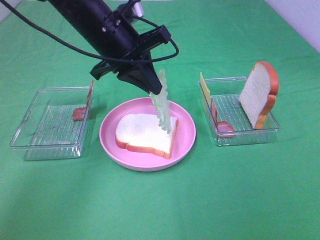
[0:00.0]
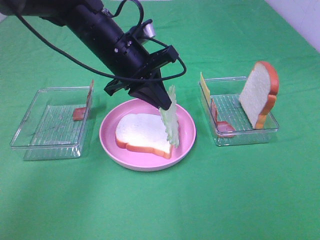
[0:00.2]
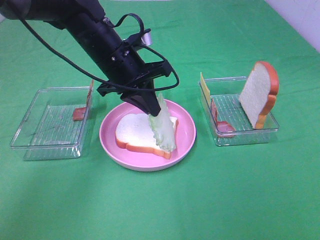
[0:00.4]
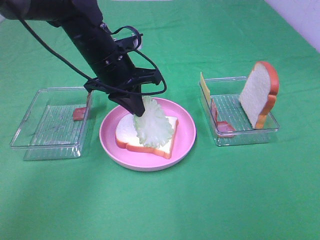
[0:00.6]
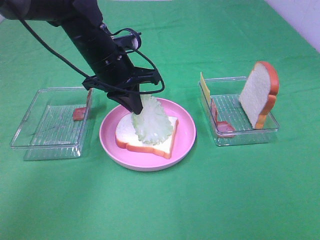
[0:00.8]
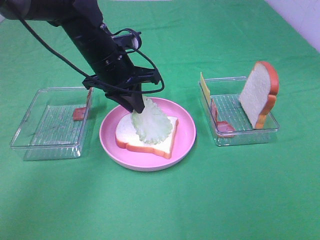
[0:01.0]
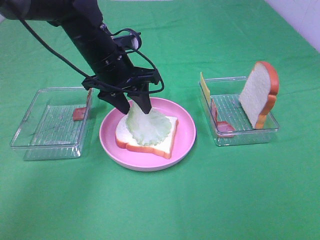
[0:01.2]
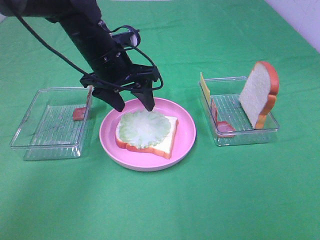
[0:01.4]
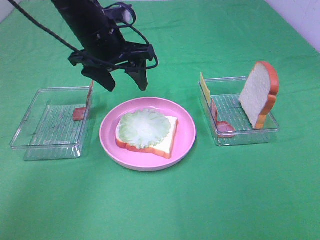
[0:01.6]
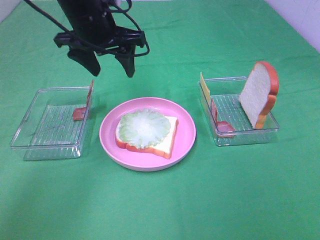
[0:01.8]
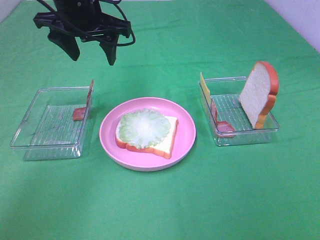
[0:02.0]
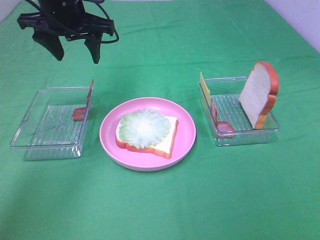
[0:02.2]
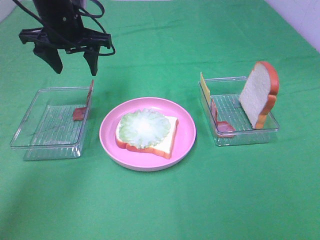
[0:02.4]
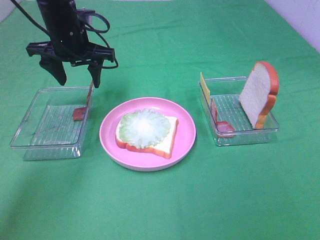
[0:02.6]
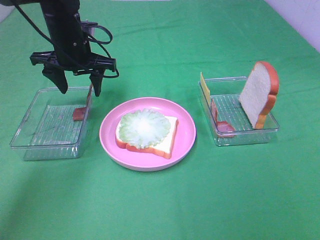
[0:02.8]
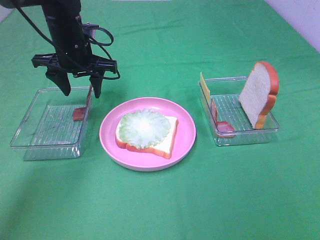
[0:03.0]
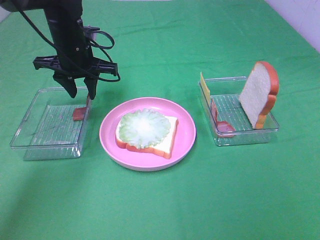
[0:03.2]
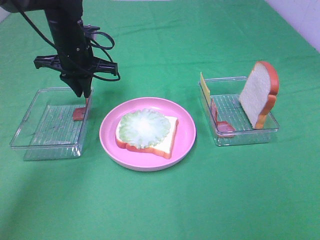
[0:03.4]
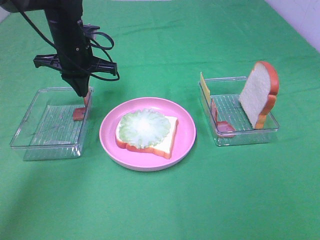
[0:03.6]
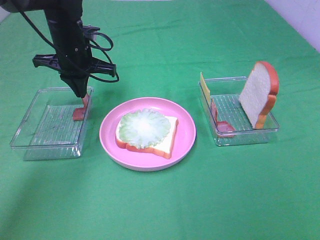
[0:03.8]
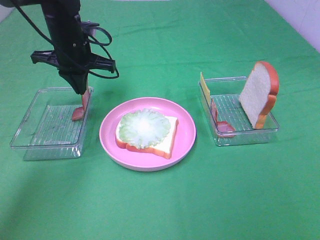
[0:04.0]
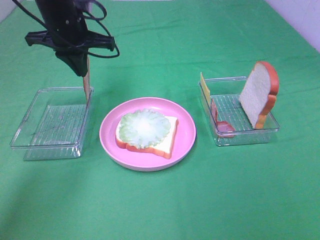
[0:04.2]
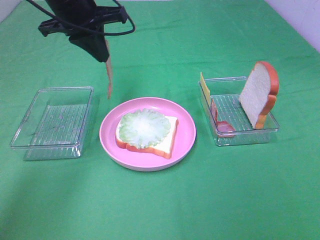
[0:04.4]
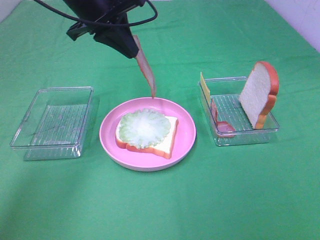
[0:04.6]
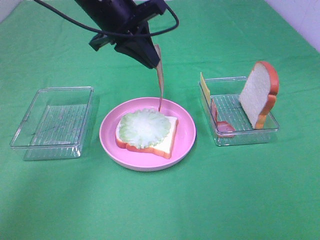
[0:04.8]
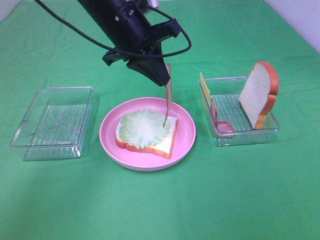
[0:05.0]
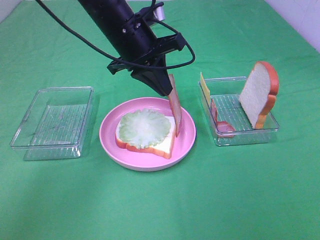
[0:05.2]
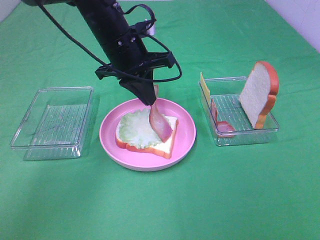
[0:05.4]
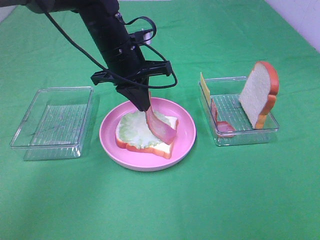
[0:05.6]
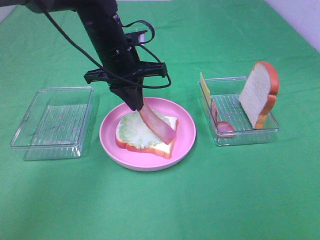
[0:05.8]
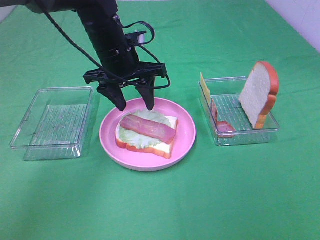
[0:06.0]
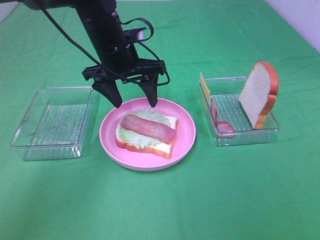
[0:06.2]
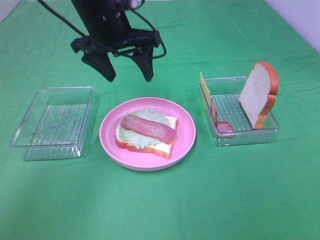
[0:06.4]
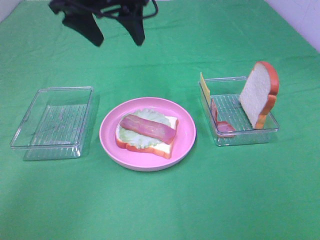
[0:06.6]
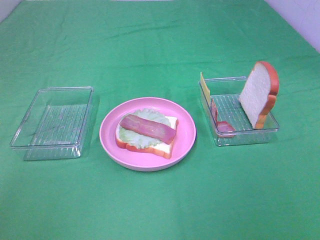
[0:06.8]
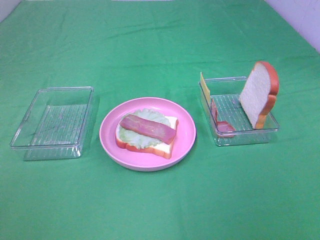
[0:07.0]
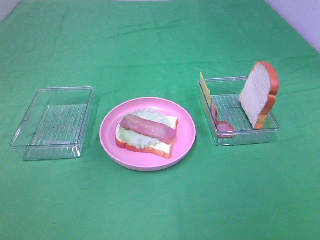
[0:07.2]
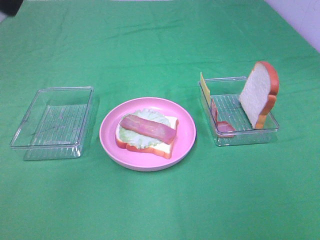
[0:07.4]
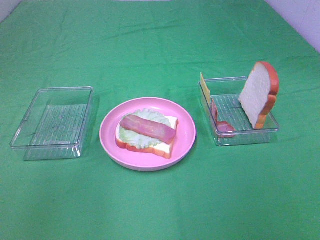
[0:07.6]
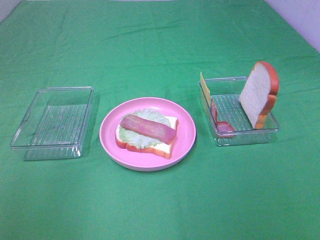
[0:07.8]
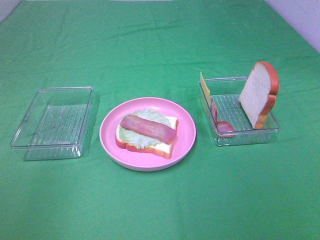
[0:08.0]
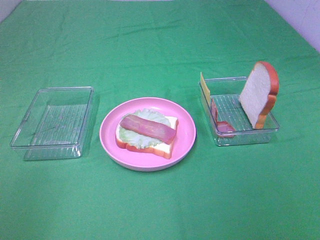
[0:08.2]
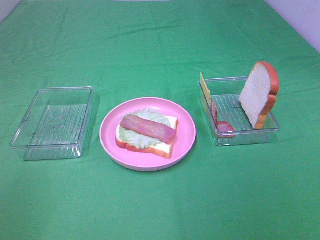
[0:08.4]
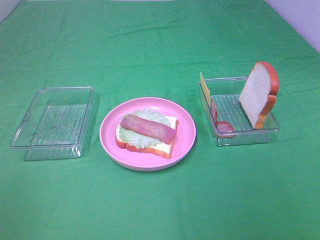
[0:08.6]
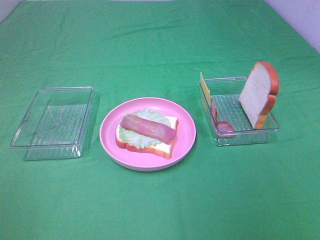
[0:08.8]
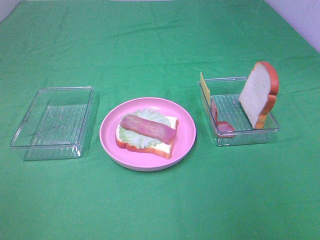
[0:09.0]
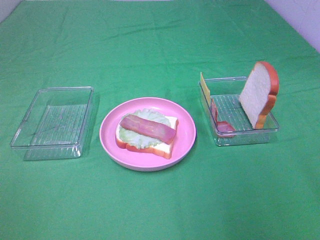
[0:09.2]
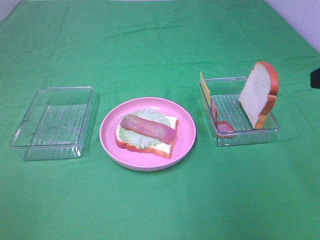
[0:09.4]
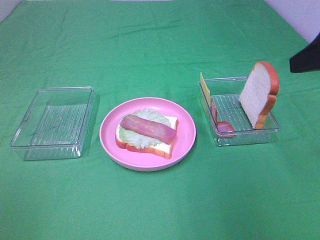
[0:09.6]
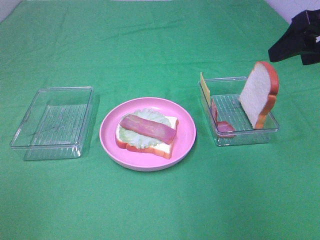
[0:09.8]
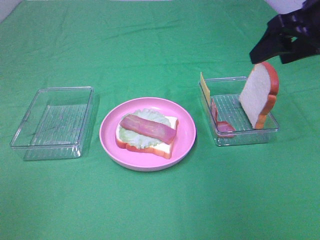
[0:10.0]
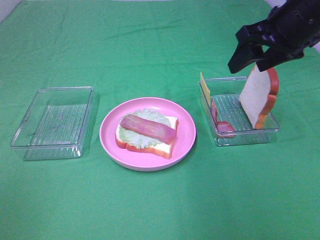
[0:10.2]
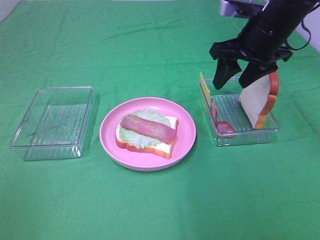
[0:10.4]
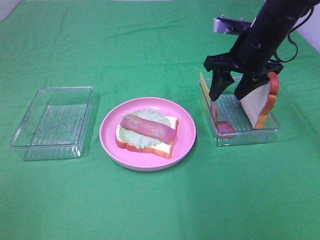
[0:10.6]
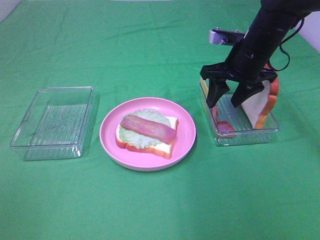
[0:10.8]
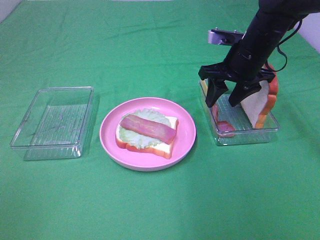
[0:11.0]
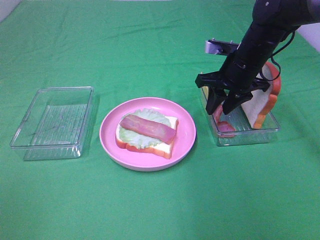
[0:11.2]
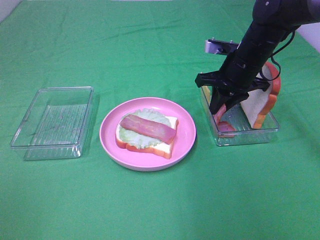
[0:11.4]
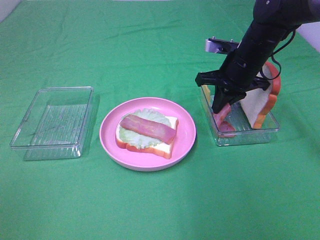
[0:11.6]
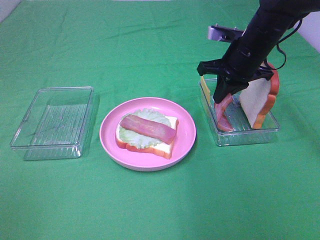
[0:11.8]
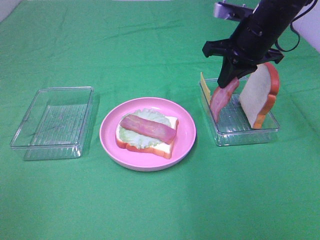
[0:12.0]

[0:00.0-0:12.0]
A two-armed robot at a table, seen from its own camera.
Task of the whole recording: Make sandwiches.
Step, 0:00.0 to 0:01.4: Left hand:place the lettuce slice on the bread slice.
Step, 0:01.6 to 0:03.8: Left hand:grab the bacon.
Step, 0:04.0 to 0:06.2: Left hand:place bacon on lettuce slice.
Step, 0:06.4 to 0:11.6: Right hand:grab the bacon.
0:00.0 to 0:01.6: The left gripper opens up.
0:01.6 to 0:03.0: The left gripper moves to the left and forward, approximately 10 cm.
0:03.0 to 0:04.4: The left gripper travels upward by approximately 10 cm, and closes.
0:04.4 to 0:06.0: The left gripper moves downward and to the right, some 10 cm, and opens up.
0:06.0 to 0:07.6: The left gripper moves backward, upward and to the left, about 35 cm.
0:07.6 to 0:09.0: The left gripper goes approximately 20 cm backward, downward and to the left.
0:09.0 to 0:10.4: The right gripper travels forward by about 30 cm.
0:10.4 to 0:12.0: The right gripper goes downward and returns, approximately 10 cm each way, and closes.

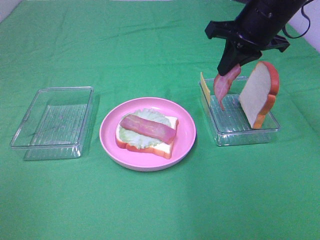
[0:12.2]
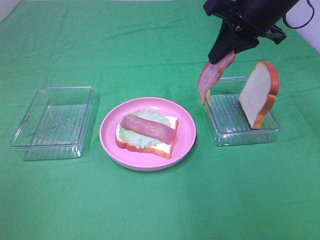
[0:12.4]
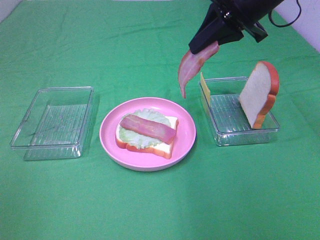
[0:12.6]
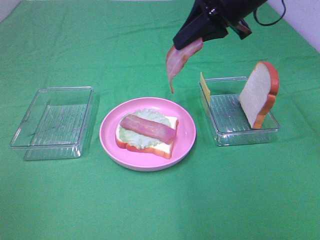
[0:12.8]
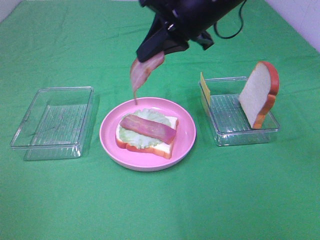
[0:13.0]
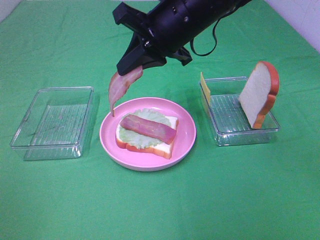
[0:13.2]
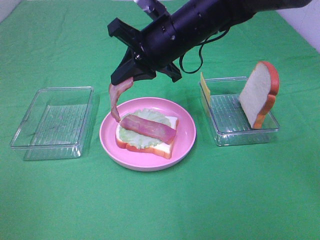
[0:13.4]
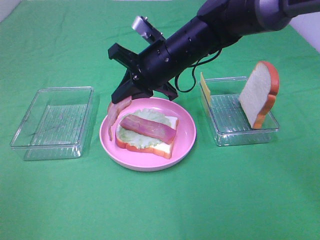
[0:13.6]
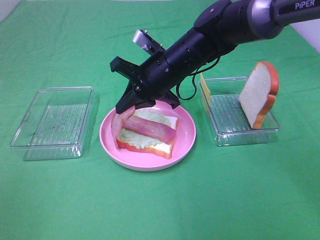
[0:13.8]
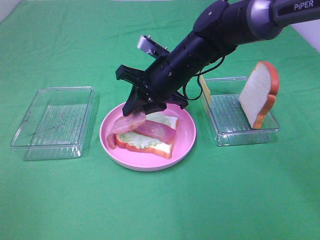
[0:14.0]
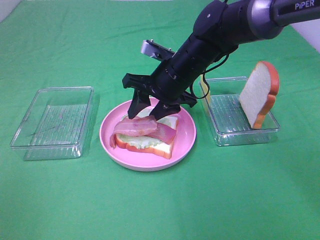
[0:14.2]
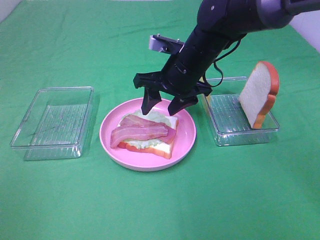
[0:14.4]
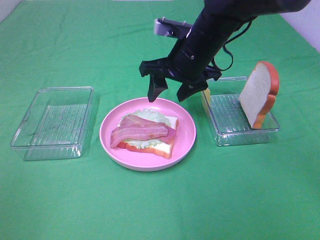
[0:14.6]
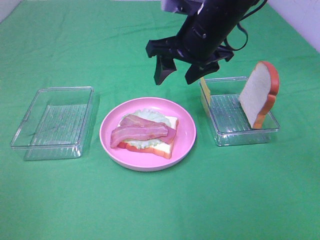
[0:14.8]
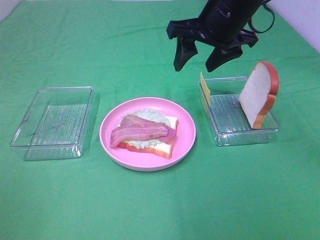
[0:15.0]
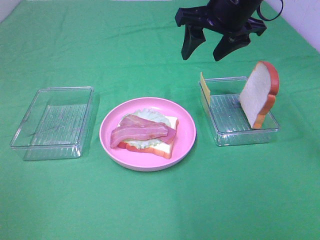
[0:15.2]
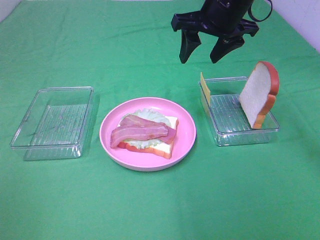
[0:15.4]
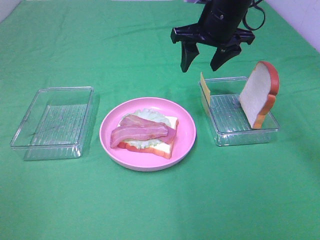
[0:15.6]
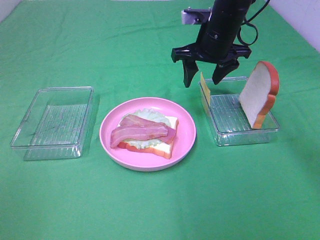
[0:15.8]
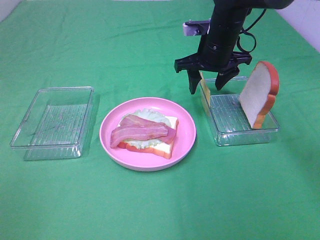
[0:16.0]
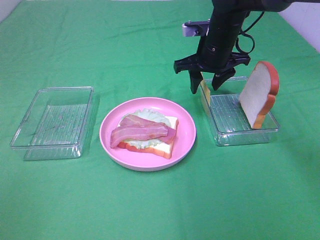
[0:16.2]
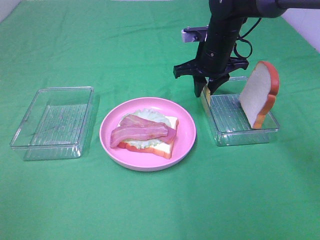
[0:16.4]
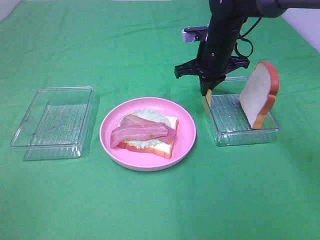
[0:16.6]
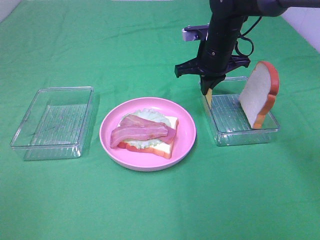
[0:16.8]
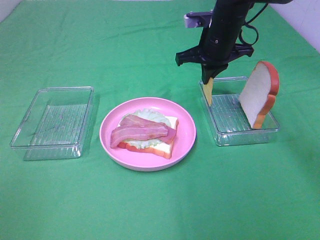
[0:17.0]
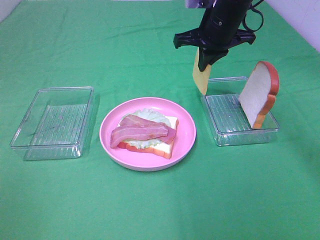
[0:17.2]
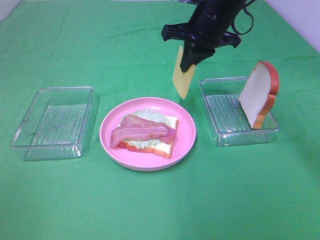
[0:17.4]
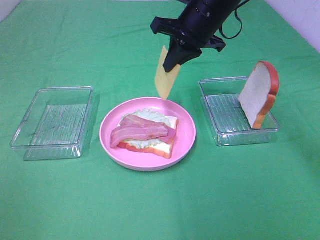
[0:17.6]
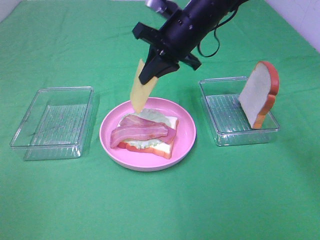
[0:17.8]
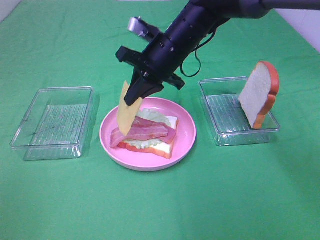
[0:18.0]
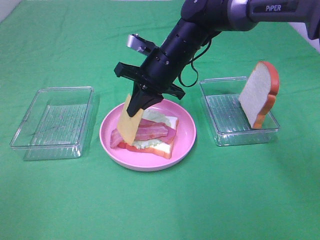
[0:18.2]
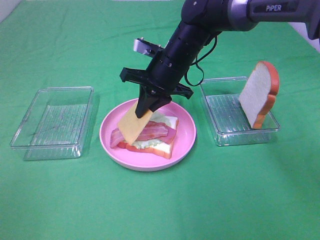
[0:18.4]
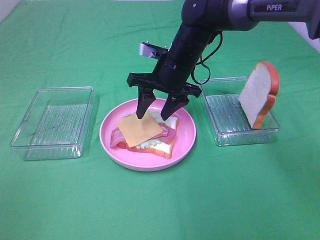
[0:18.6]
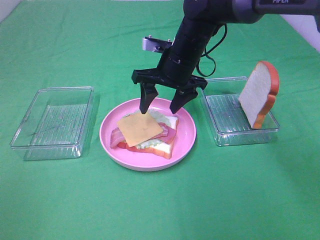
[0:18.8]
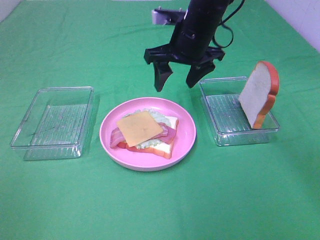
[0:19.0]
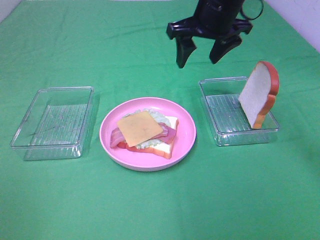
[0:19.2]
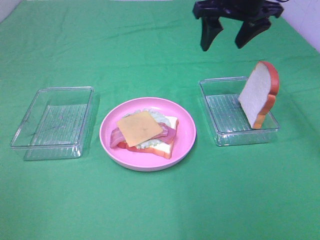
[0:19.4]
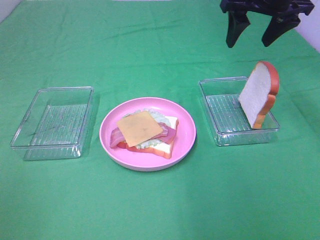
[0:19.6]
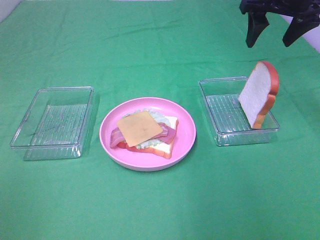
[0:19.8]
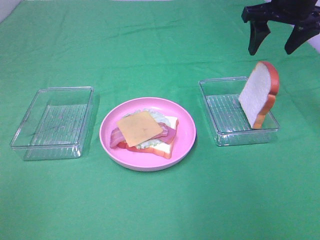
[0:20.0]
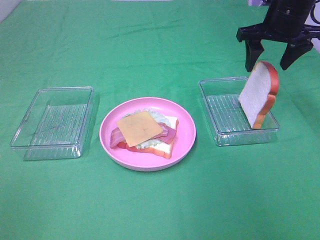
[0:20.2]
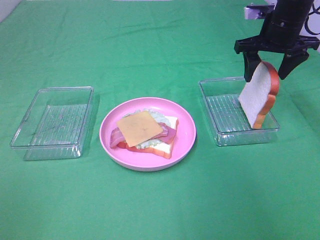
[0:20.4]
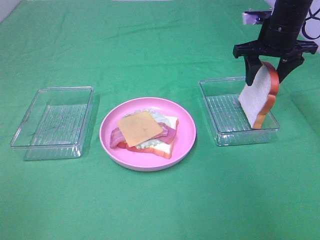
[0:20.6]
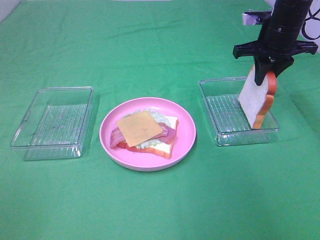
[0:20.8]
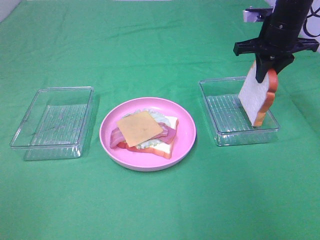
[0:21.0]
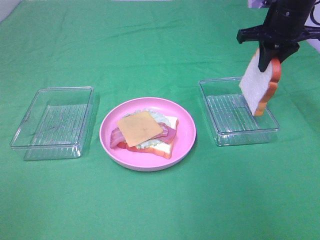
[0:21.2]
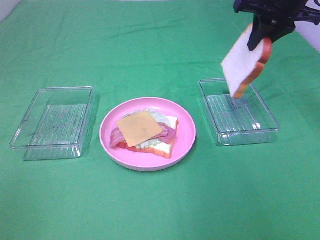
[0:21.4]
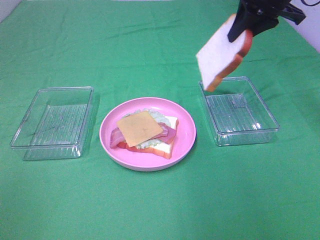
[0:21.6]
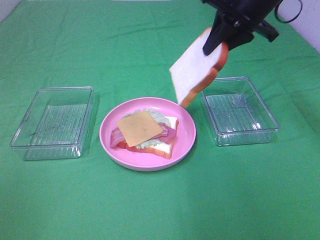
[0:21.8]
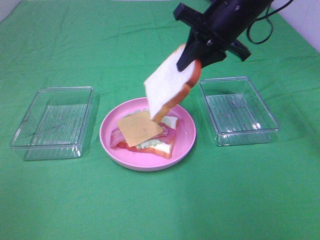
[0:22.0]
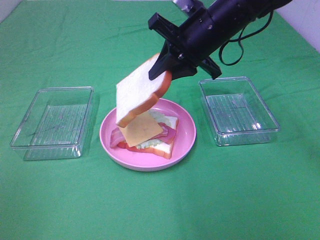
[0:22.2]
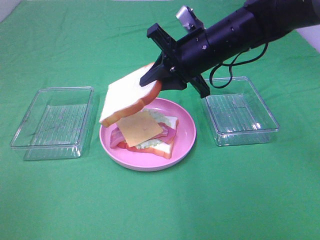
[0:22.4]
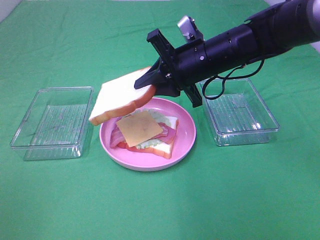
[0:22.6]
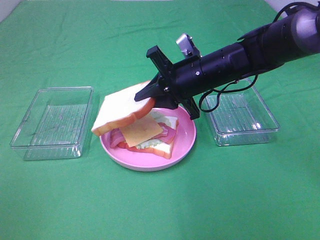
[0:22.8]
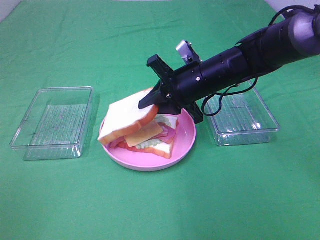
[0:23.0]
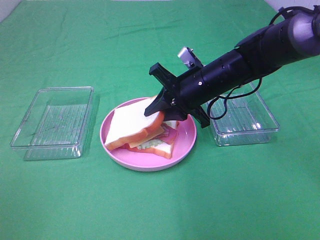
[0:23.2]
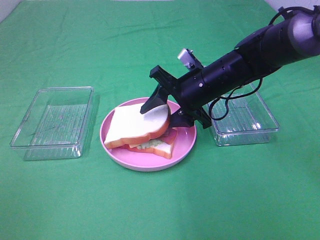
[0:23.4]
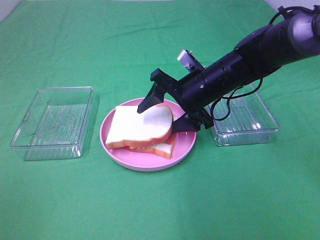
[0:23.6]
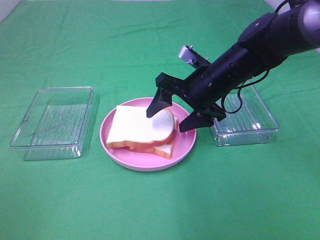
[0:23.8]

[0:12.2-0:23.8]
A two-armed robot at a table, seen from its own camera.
Task of the whole recording: Make sandwiches.
Step, 0:12.2 to 0:14.6: Right hand:place bacon on bacon.
Step, 0:14.8 to 0:16.8: Right hand:grab the cheese slice.
Step, 0:17.0 to 0:18.8: Right hand:place the cheese slice on top of the bacon.
Step, 0:19.0 to 0:21.0: Right hand:grab the bread slice.
Step, 0:21.2 to 0:23.8: Right hand:place the bread slice on the cheese slice.
0:12.2 to 0:13.6: The right gripper moves to the left and downward, some 15 cm.
0:13.6 to 0:15.0: The right gripper heads upward and to the right, covering some 15 cm, and opens.
0:15.0 to 0:16.6: The right gripper is displaced downward and forward by approximately 15 cm, and closes.
0:16.6 to 0:18.0: The right gripper moves to the left and backward, about 10 cm.
0:18.0 to 0:19.4: The right gripper is displaced to the right and upward by about 20 cm, and opens its fingers.
0:19.4 to 0:21.0: The right gripper is displaced downward and to the right by roughly 10 cm, and closes.
0:21.0 to 0:22.4: The right gripper goes about 15 cm to the left and backward.
0:22.4 to 0:23.8: The right gripper changes place by approximately 5 cm, and opens up.
